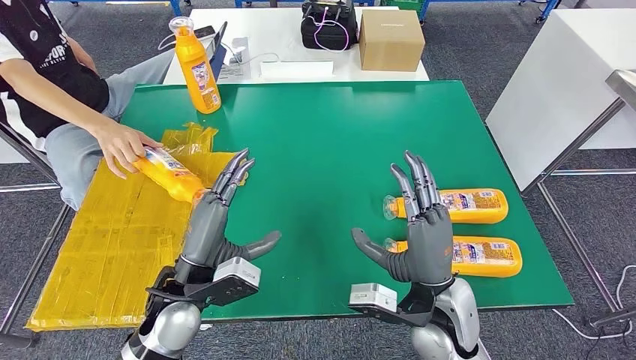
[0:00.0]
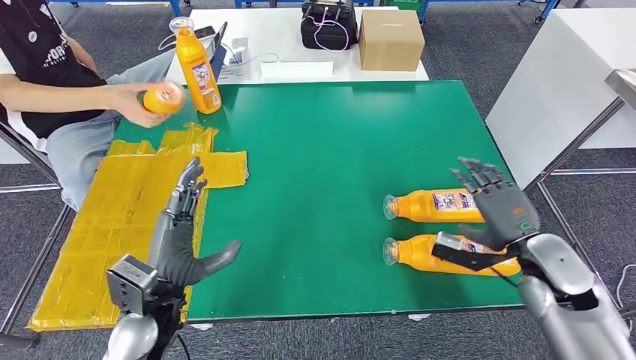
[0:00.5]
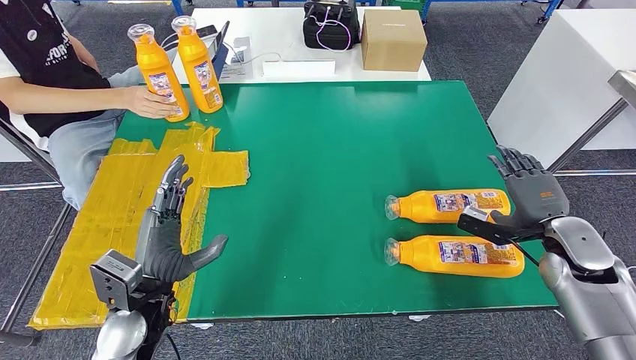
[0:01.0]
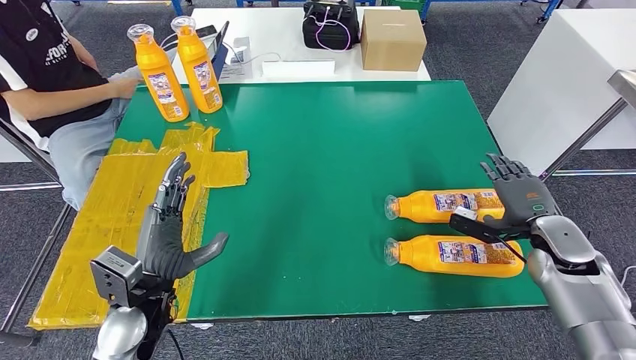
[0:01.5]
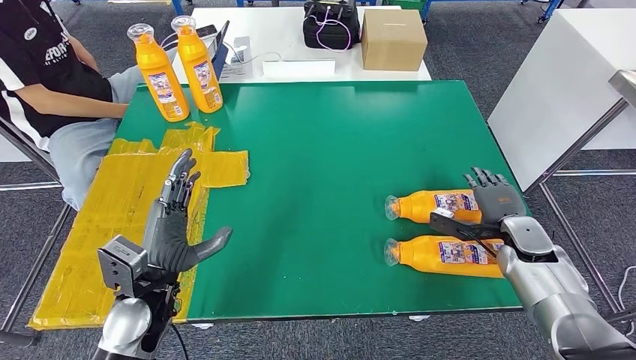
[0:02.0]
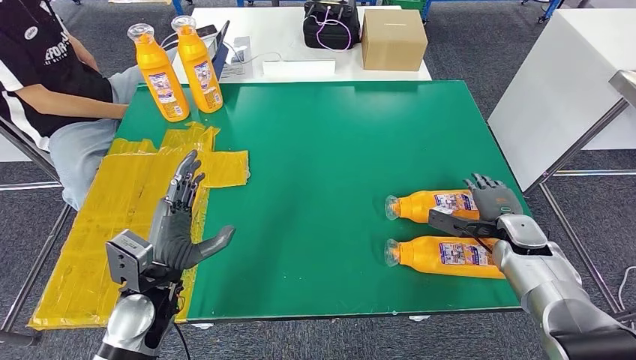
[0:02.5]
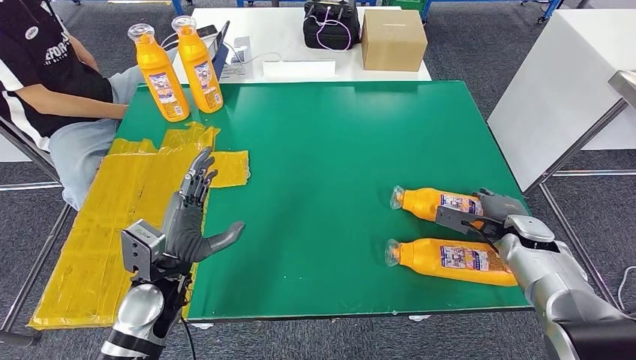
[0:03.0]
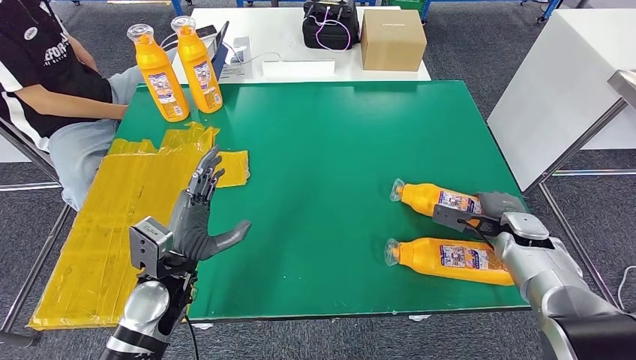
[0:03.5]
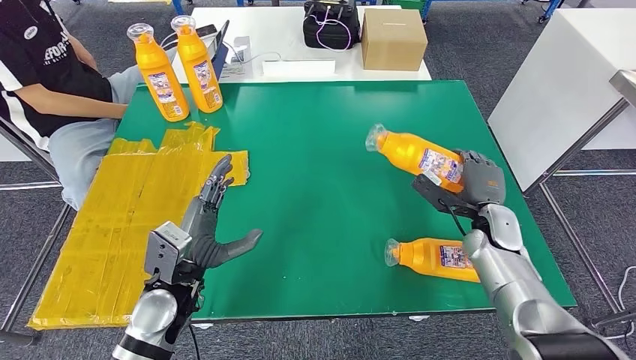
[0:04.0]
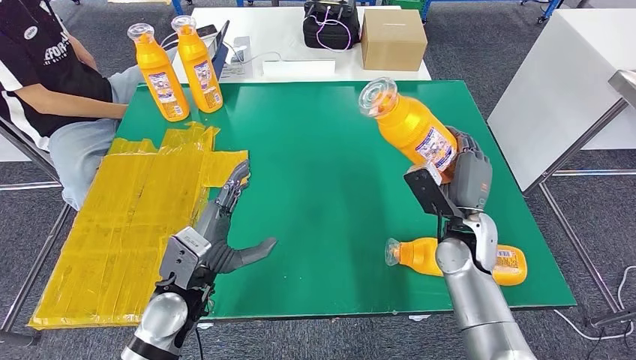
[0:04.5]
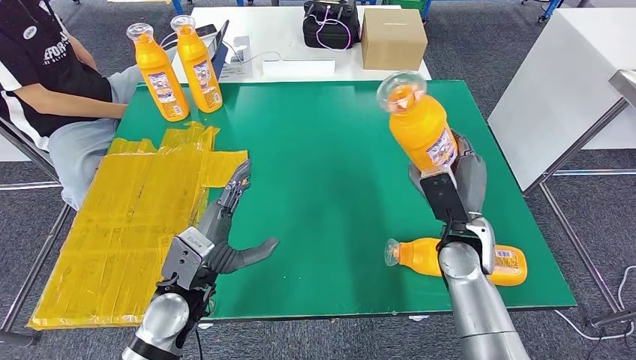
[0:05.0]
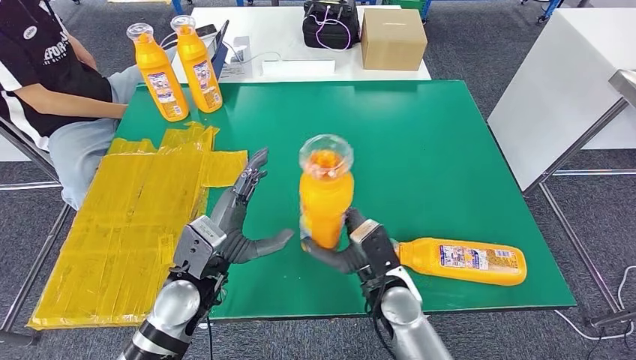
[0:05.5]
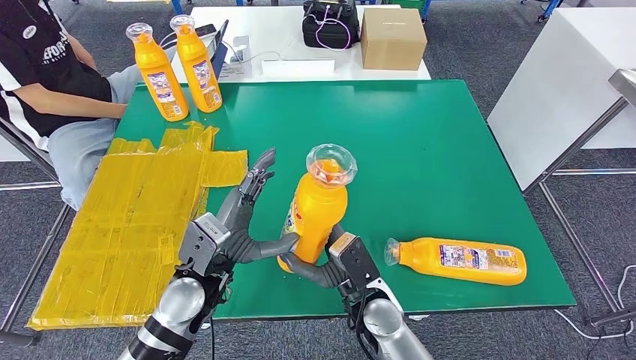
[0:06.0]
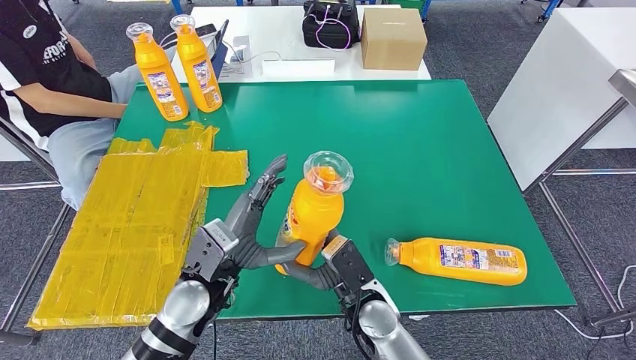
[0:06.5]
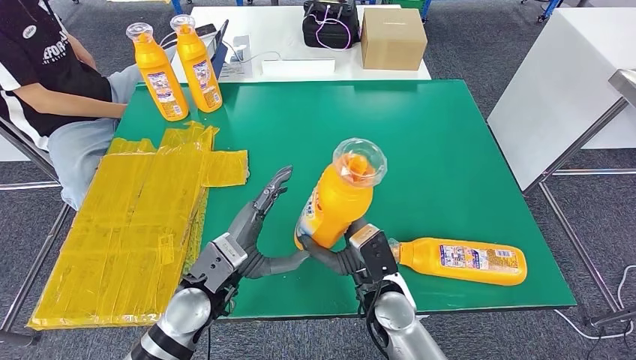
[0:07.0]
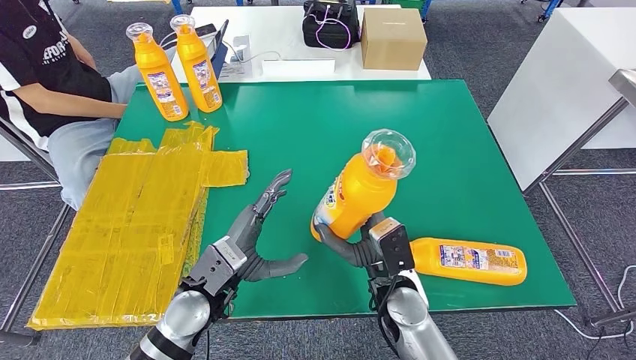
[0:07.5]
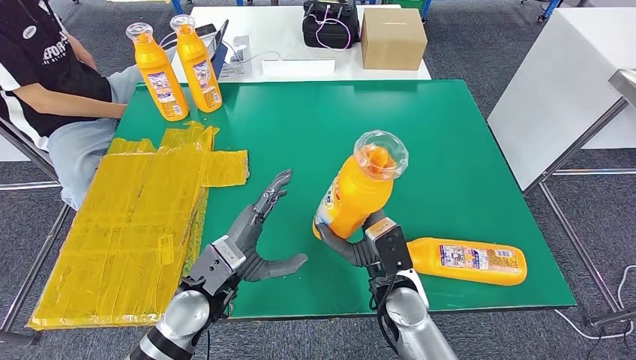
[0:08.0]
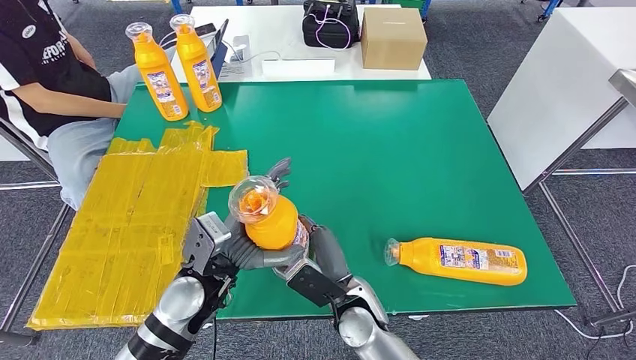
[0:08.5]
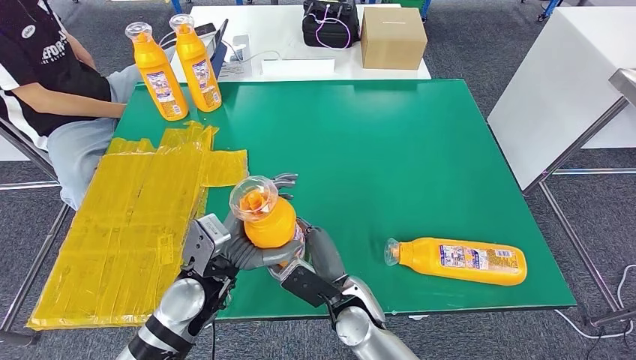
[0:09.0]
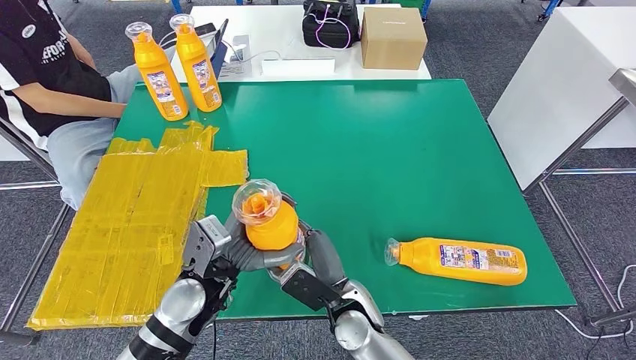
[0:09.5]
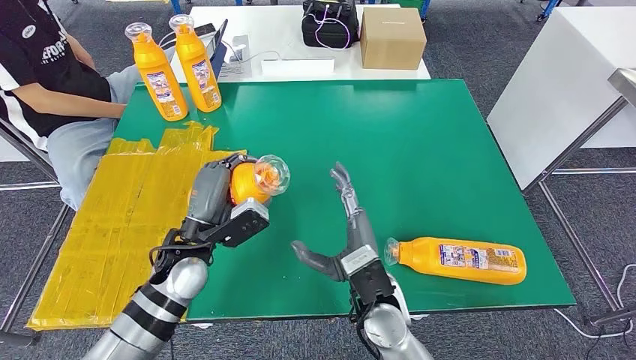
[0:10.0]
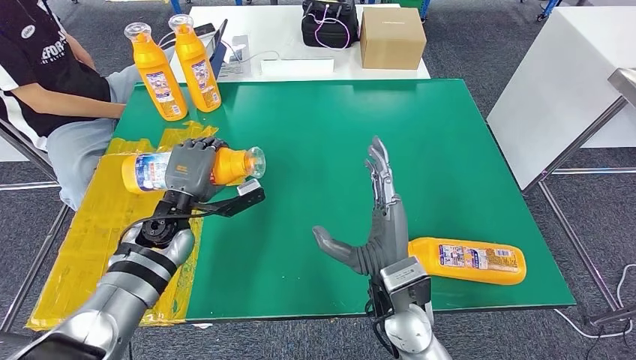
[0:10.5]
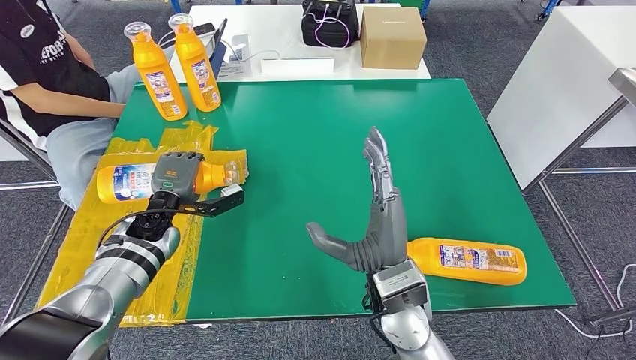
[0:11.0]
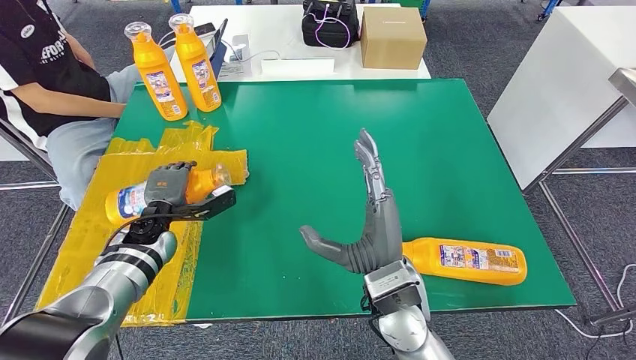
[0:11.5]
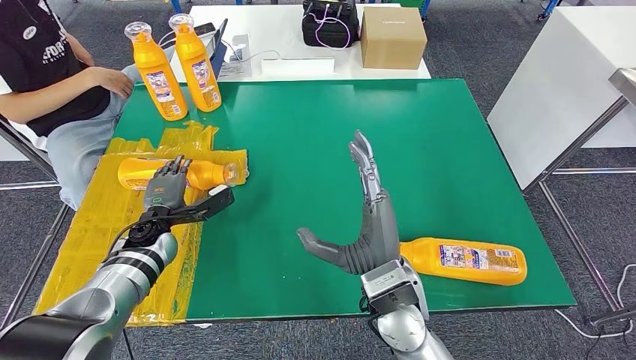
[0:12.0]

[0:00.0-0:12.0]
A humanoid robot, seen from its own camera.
Step, 0:00.0 to 0:06.5: Pick up the fast-moving consumer goods bottle from the table.
0:02.0 to 0:04.0: The right hand shifts roughly 5 cm to the left.
0:06.0 to 0:08.0: There are only small adjustments of the hands.
0:08.0 to 0:10.0: The left hand travels forward by approximately 5 cm.
0:10.0 to 0:12.0: The left hand heads to the left, downward and forward, covering some 15 cm; the right hand travels upward by roughly 5 cm.

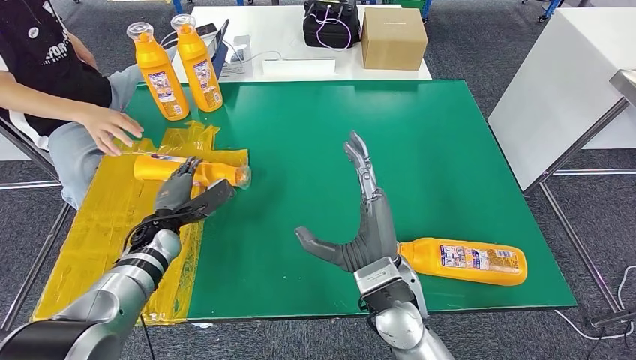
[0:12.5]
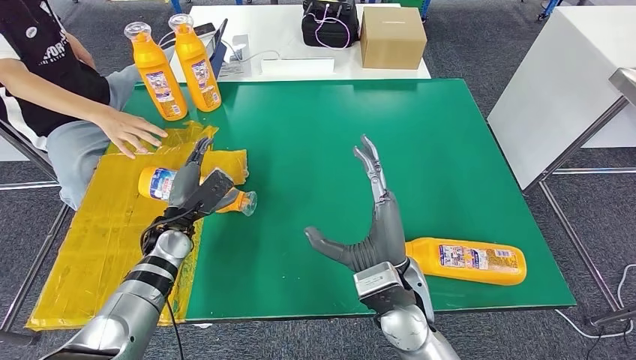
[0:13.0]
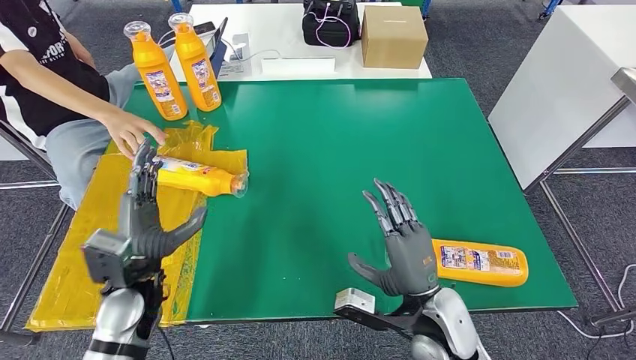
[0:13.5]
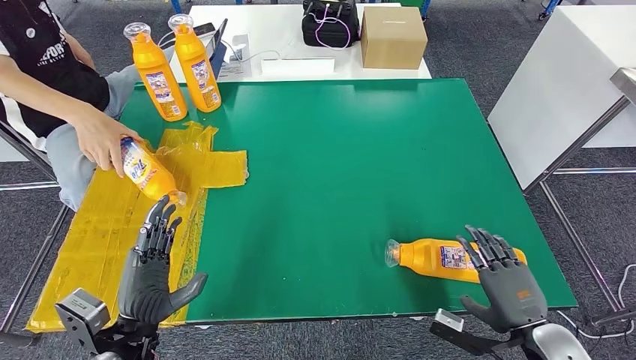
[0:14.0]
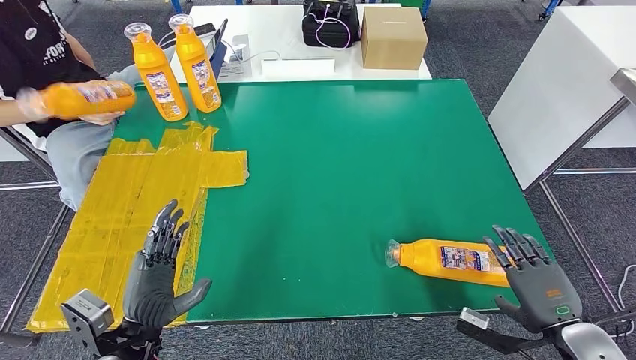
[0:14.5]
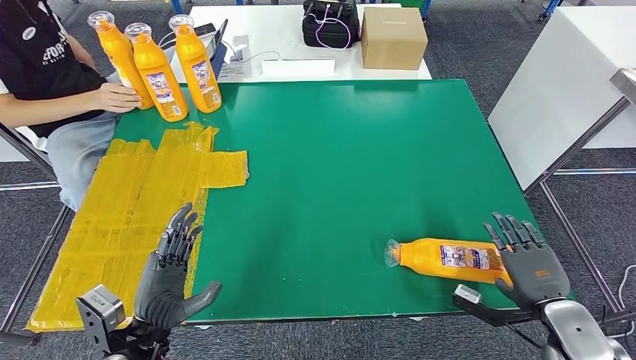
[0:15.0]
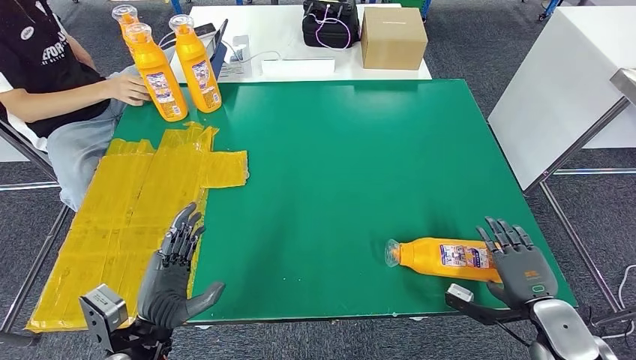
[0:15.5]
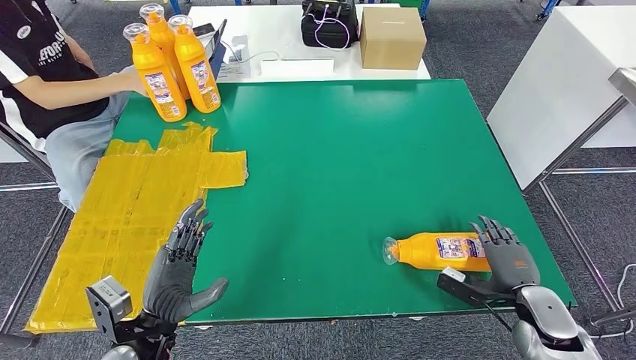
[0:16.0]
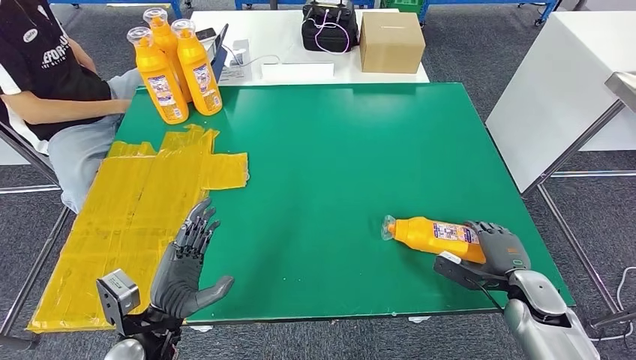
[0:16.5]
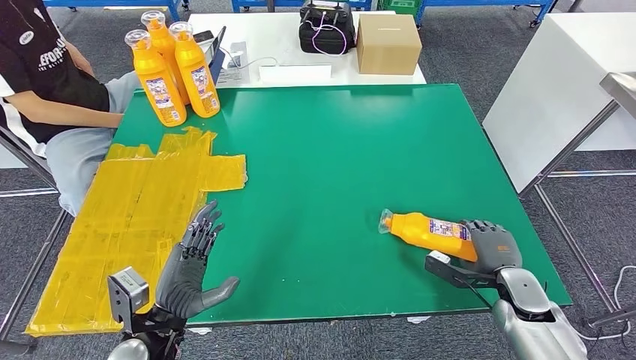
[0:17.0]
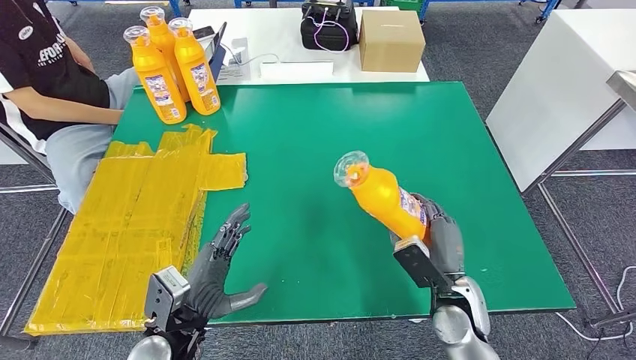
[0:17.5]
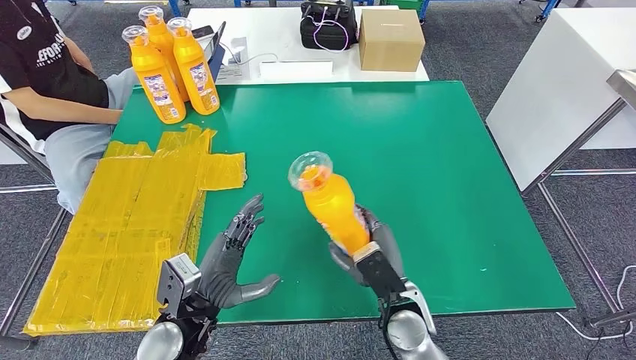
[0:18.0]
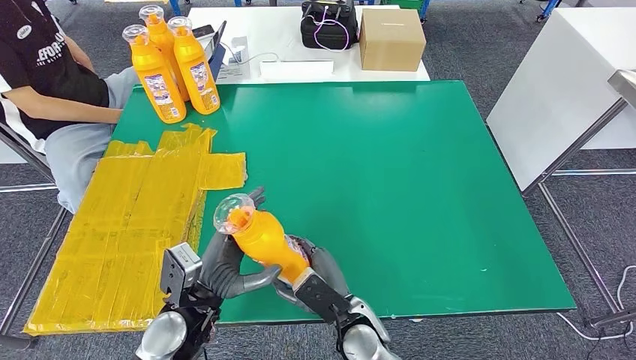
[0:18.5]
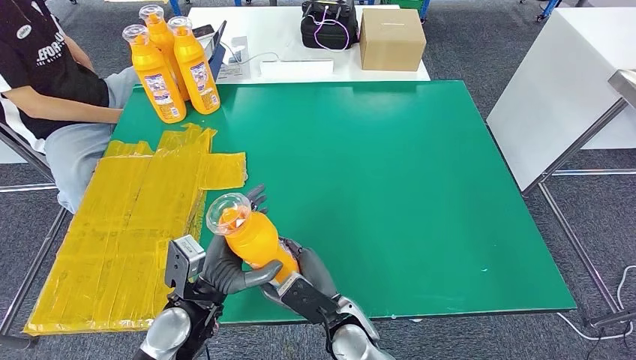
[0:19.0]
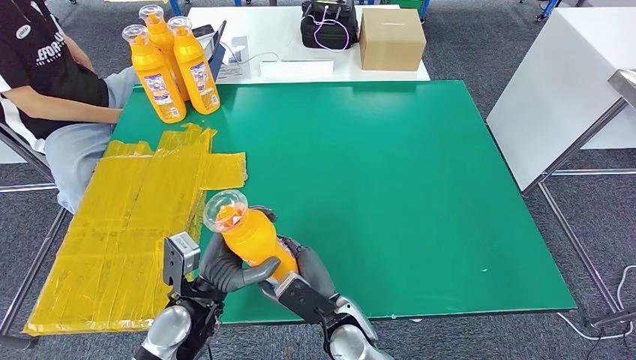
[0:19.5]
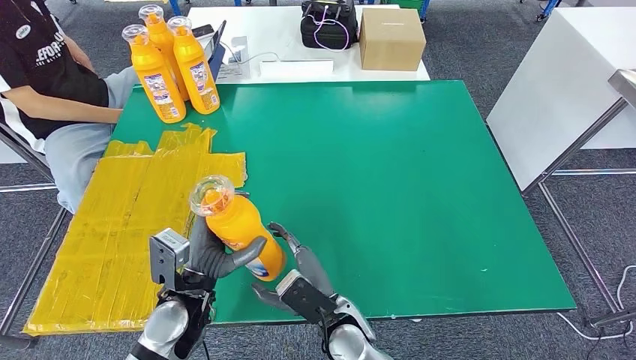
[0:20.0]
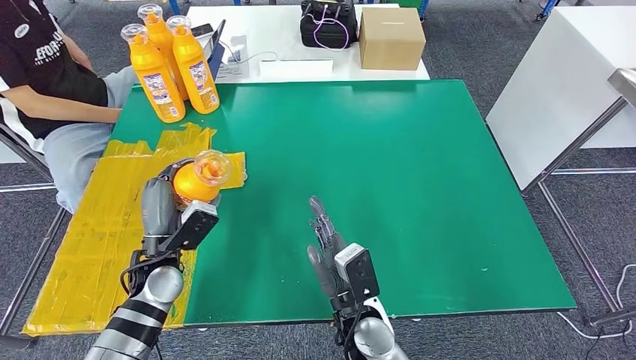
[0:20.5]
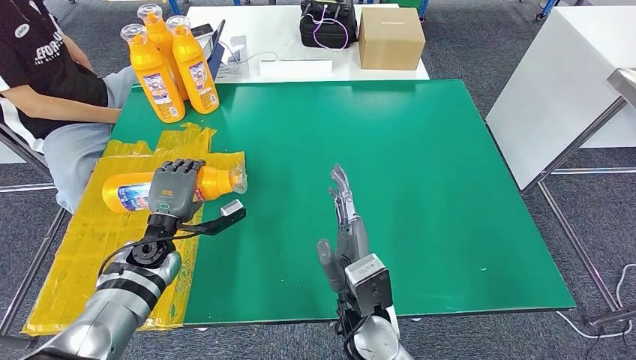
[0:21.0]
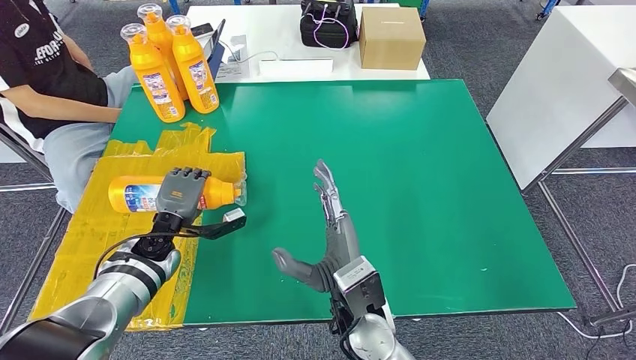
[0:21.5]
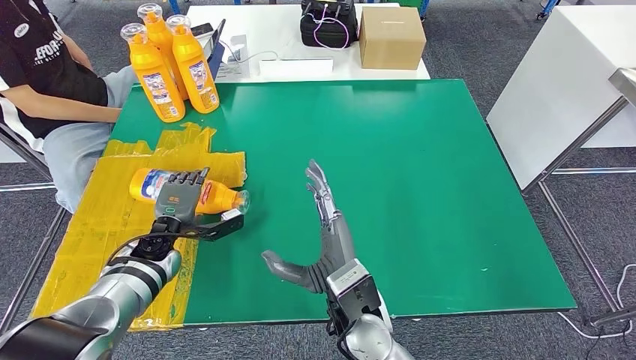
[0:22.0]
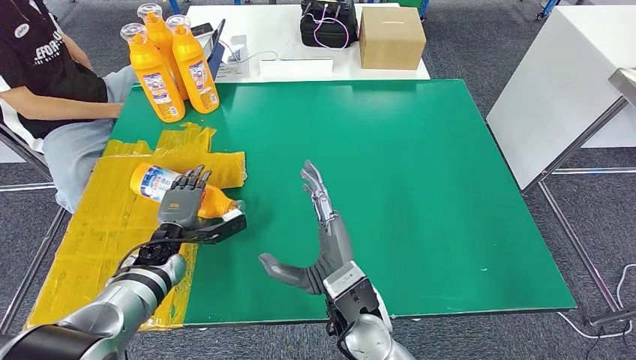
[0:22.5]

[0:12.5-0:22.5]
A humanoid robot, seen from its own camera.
Step, 0:12.5 to 0:18.5: Pick up the fast-moving consumer goods bottle from the table.
Step, 0:19.0 to 0:22.5: Flip the fast-moving consumer goods bottle to the front side.
0:18.5 to 0:20.5: The left hand goes some 10 cm forward and to the left.
0:20.5 to 0:22.5: The left hand is displaced downward and forward by some 10 cm; the right hand shifts approximately 5 cm upward.
